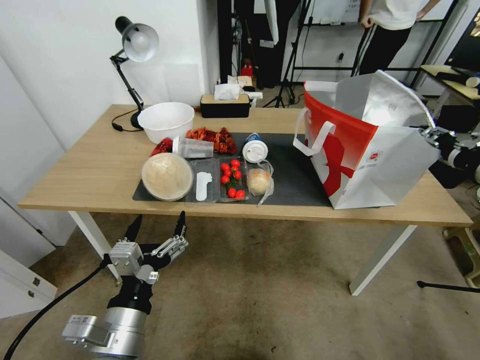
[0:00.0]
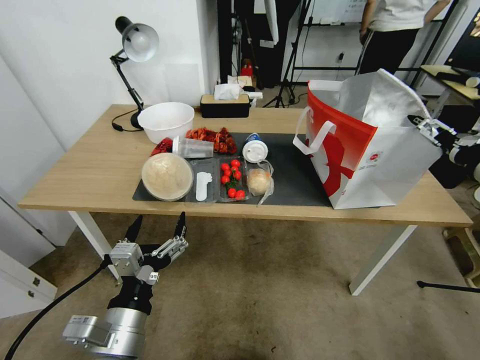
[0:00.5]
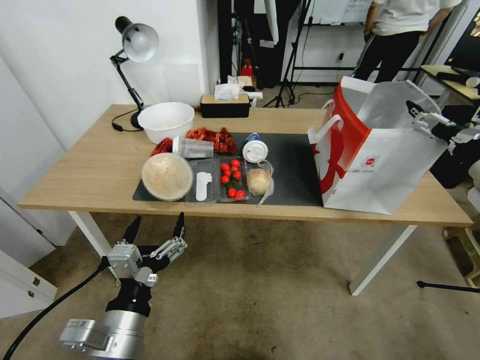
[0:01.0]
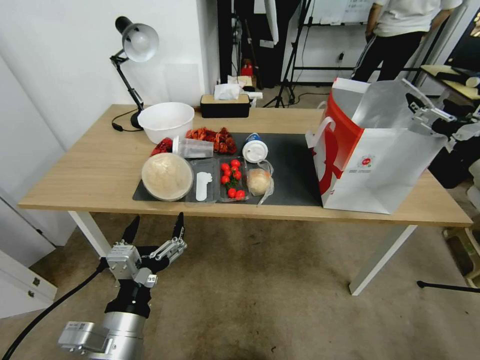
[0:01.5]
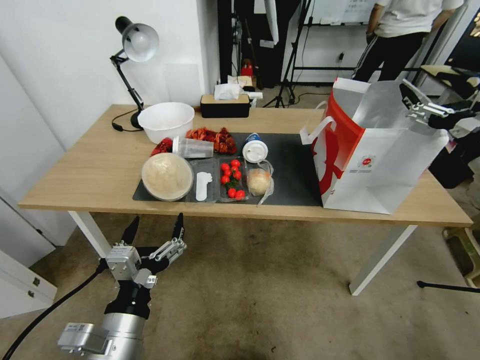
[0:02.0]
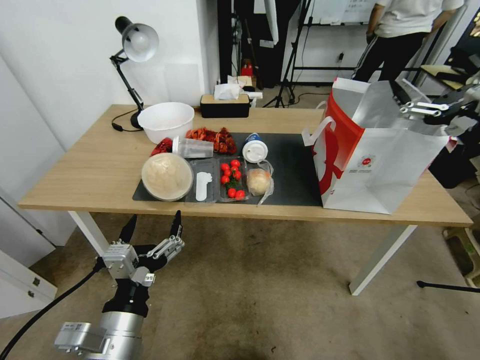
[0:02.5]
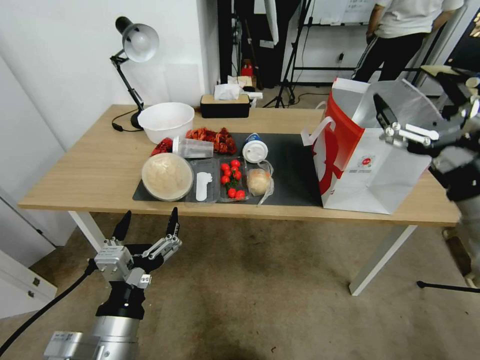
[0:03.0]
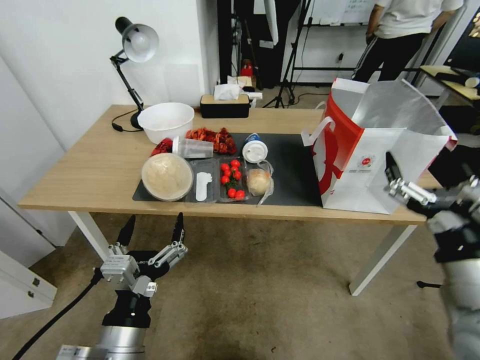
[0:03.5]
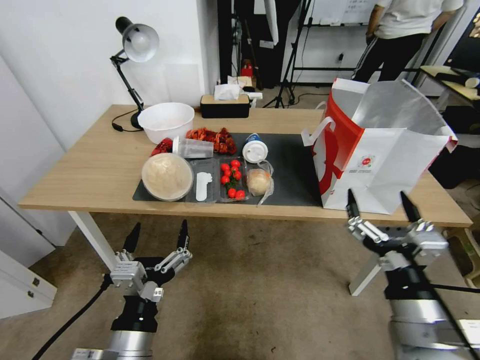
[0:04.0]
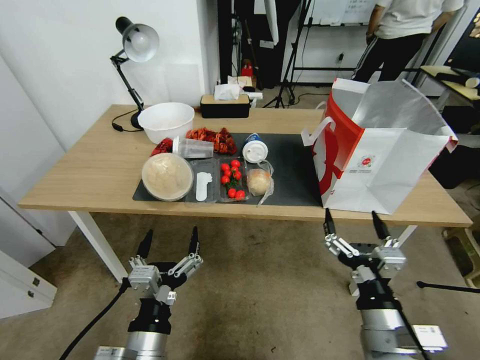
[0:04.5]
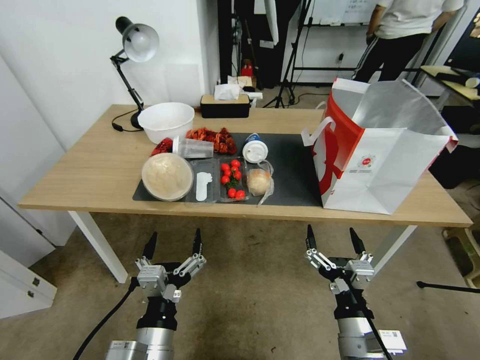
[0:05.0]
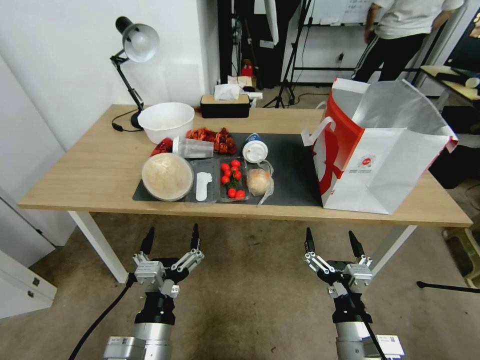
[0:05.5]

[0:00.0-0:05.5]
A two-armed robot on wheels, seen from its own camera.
Task of the whole recording: Pick up the food delivery bag from the floor and place it on the table.
0:00.0 to 0:02.0: The right gripper opens its fingers.
0:02.0 to 0:03.5: The right gripper shifts about 20 cm backward, to the left and downward.
0:03.5 to 0:05.5: The right gripper heads downward and to the left, covering roughly 20 cm. Meanwhile the left gripper shifts roughly 5 cm downward.

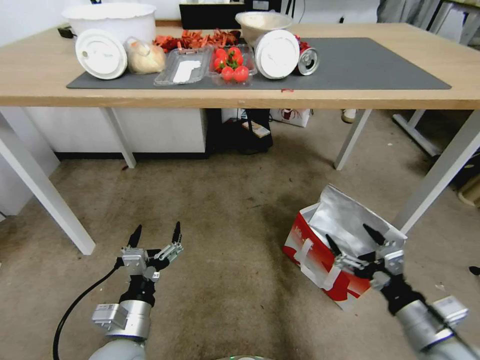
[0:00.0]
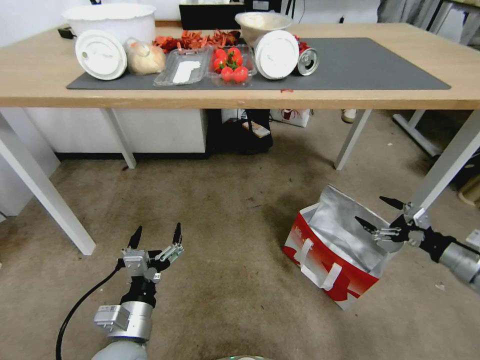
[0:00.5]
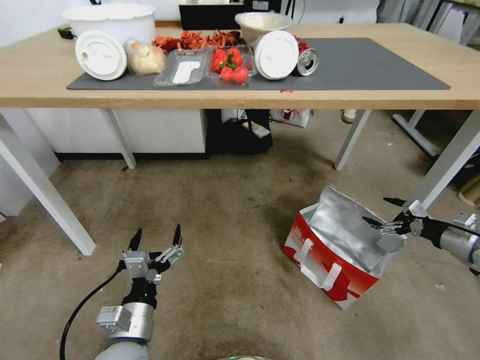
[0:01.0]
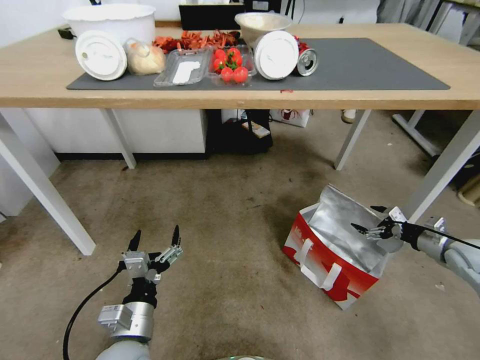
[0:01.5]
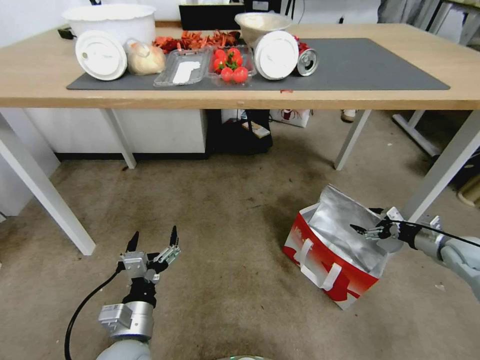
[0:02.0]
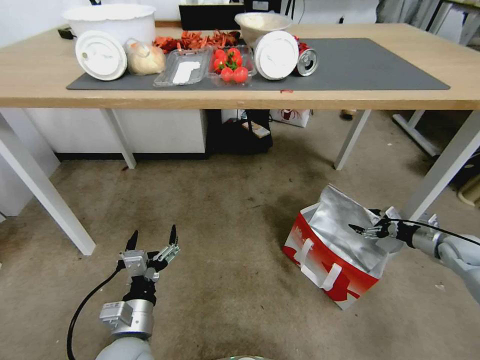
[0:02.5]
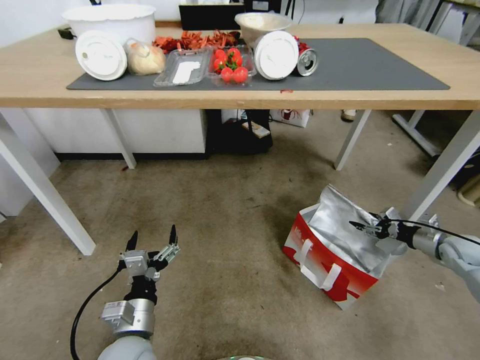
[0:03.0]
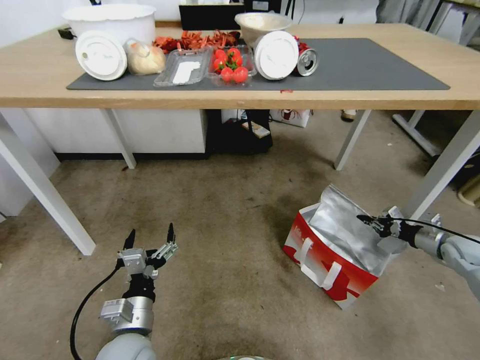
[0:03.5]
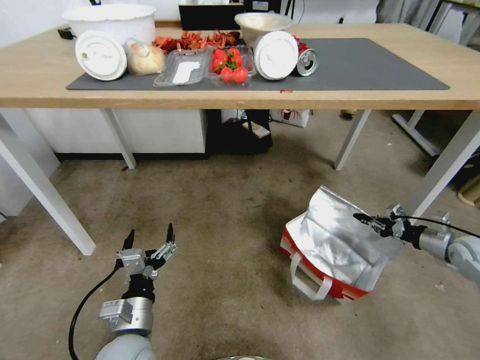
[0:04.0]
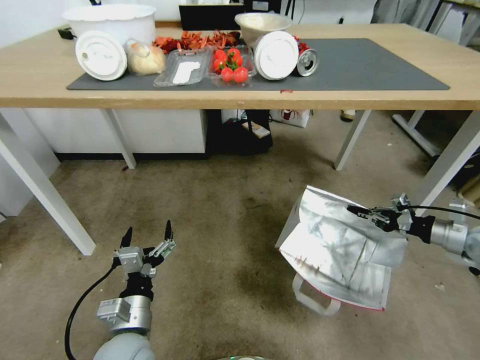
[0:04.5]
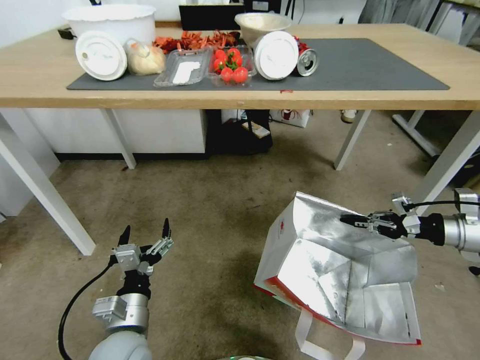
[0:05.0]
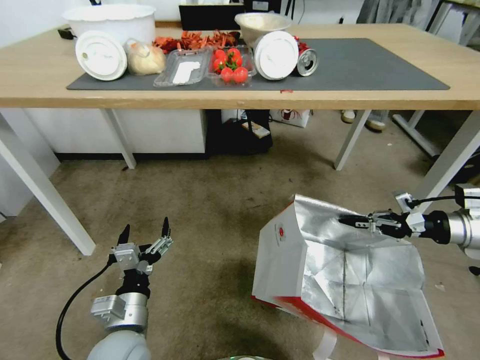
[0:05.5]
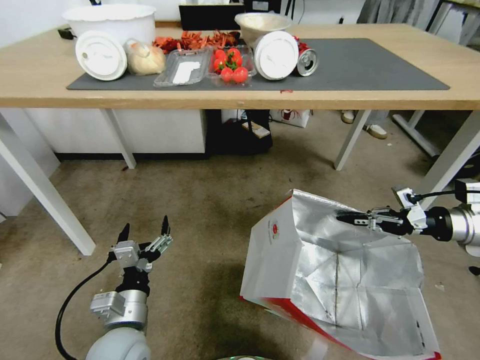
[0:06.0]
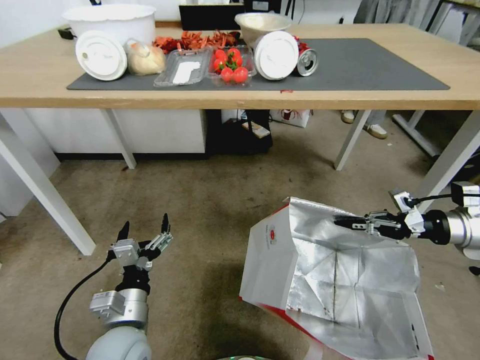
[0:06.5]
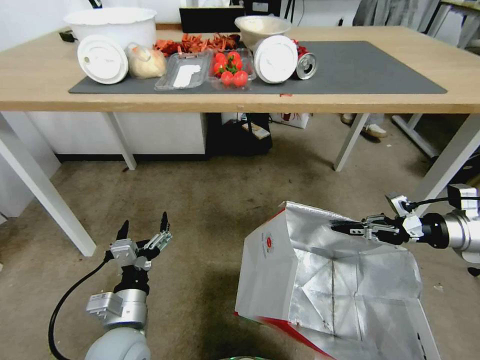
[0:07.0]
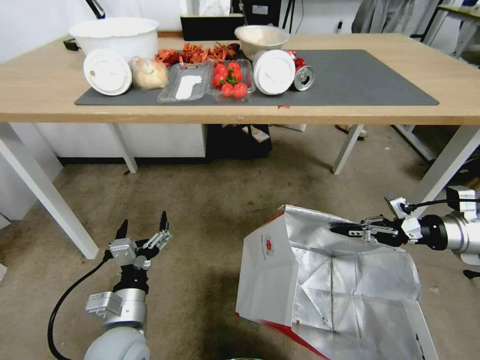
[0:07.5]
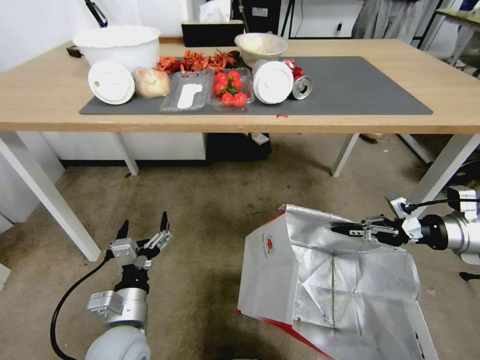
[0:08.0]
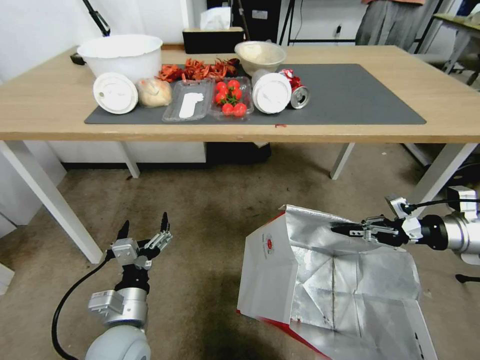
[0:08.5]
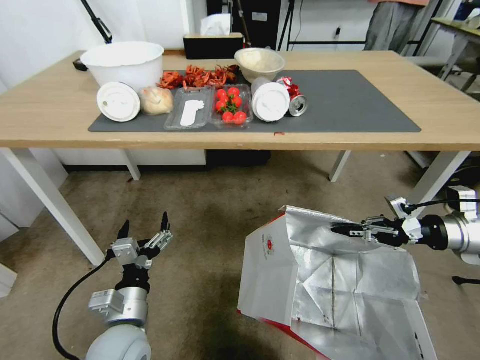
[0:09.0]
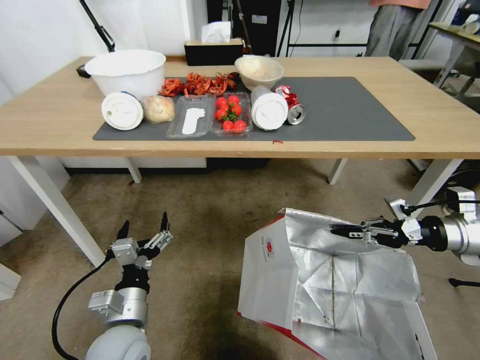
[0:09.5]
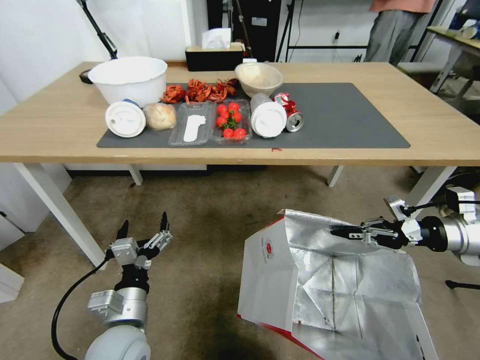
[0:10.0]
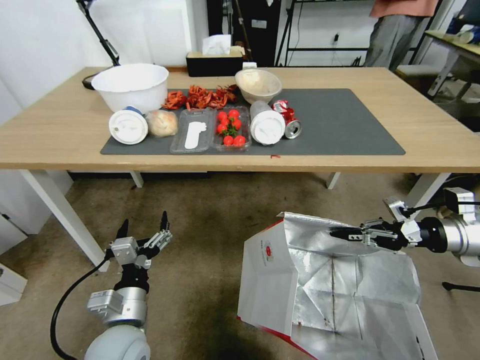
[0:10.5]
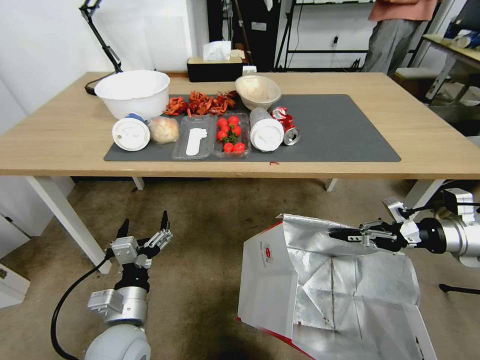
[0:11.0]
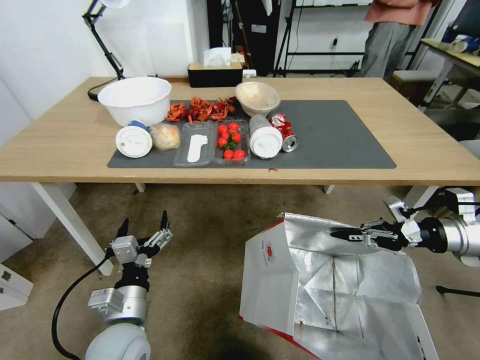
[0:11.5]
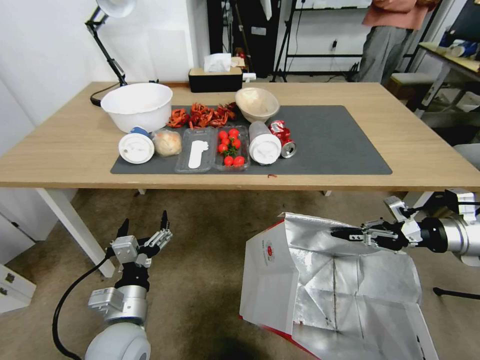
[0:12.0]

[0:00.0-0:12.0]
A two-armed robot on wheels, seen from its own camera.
Task of the whole recording: Pick up the food delivery bag from the floor and place it on the table.
0:00.0 to 0:02.0: The right gripper heads forward and to the right, covering roughly 30 cm.
0:02.0 to 0:04.0: The right gripper closes its fingers.
0:04.0 to 0:06.0: The right gripper shifts approximately 15 cm upward and to the left.

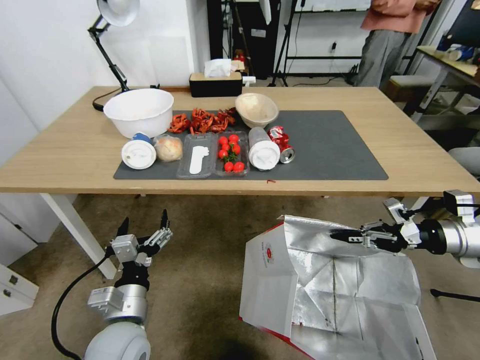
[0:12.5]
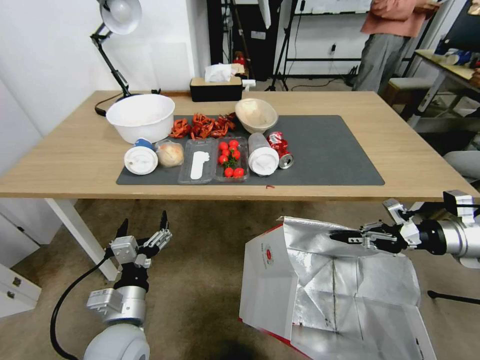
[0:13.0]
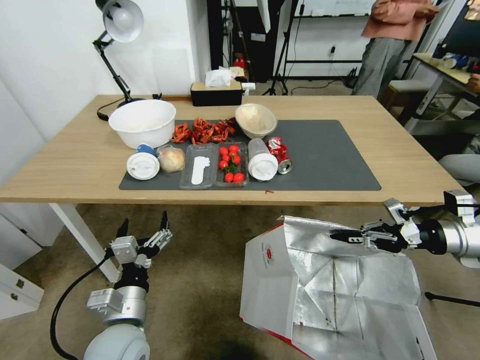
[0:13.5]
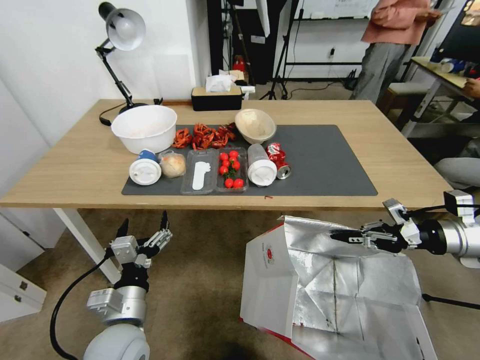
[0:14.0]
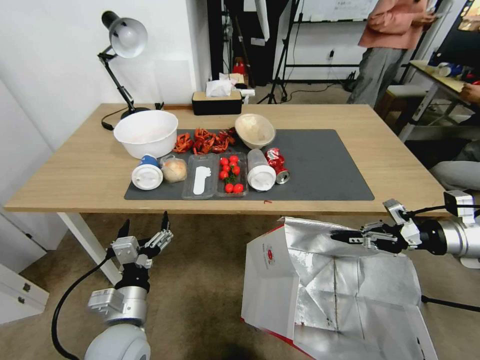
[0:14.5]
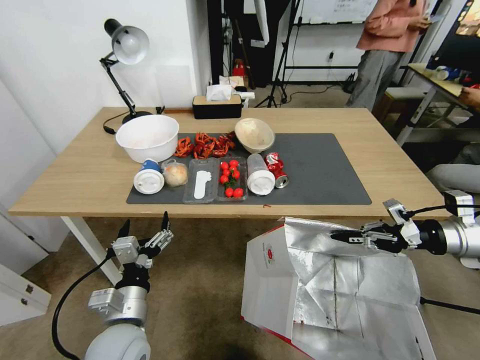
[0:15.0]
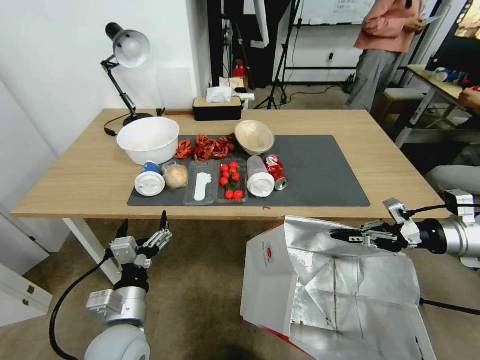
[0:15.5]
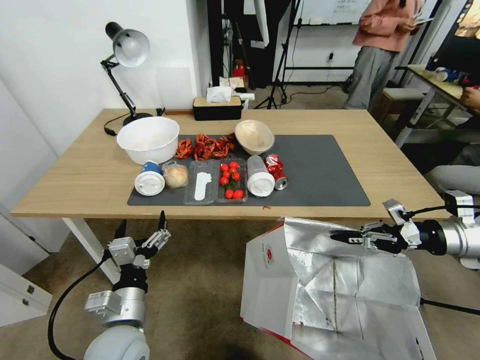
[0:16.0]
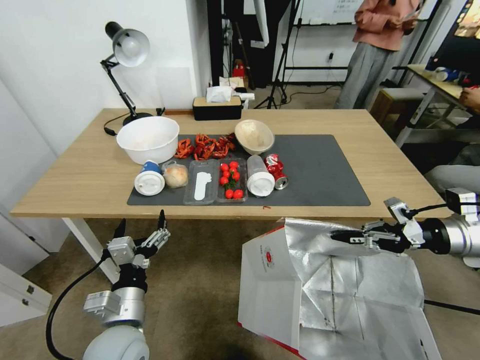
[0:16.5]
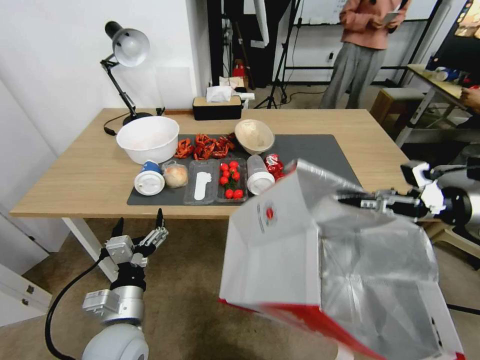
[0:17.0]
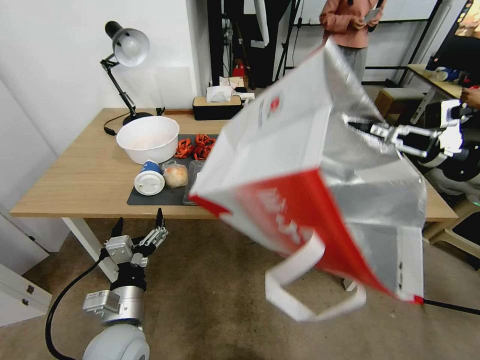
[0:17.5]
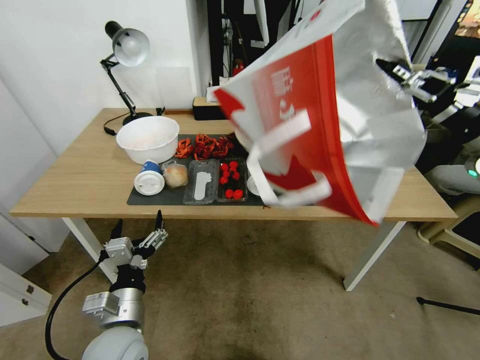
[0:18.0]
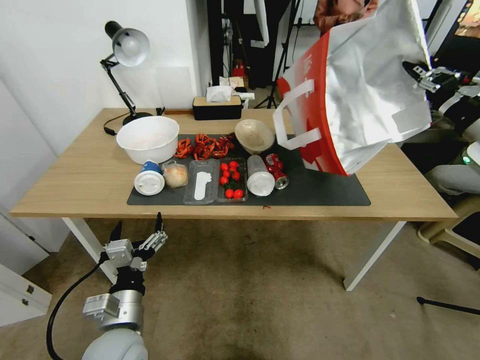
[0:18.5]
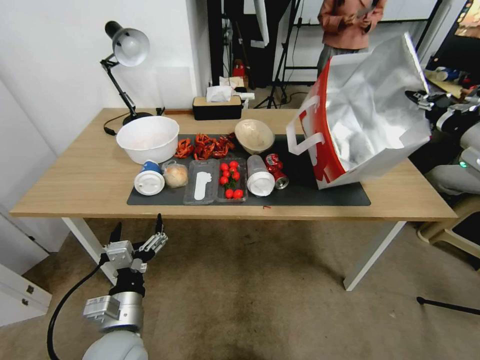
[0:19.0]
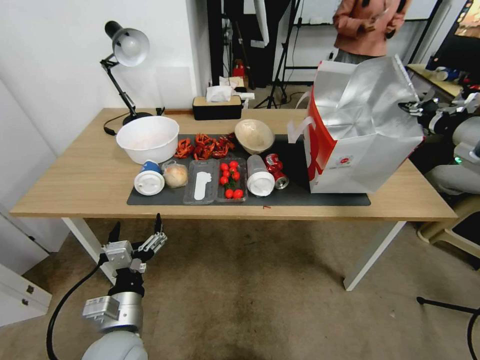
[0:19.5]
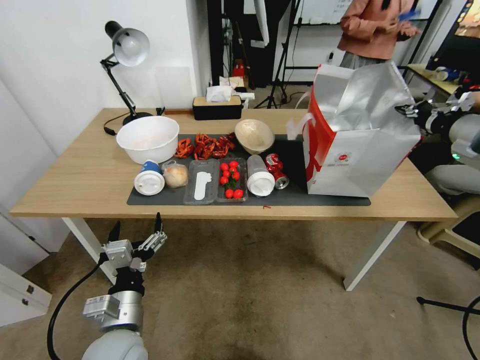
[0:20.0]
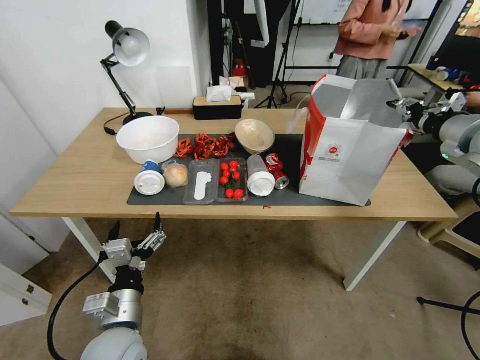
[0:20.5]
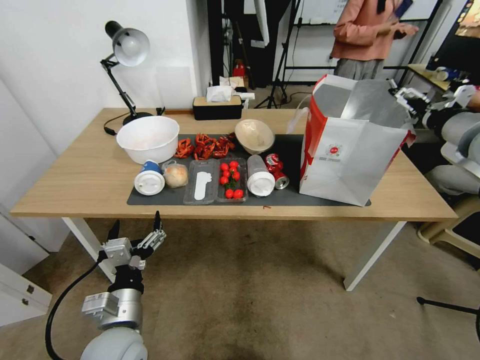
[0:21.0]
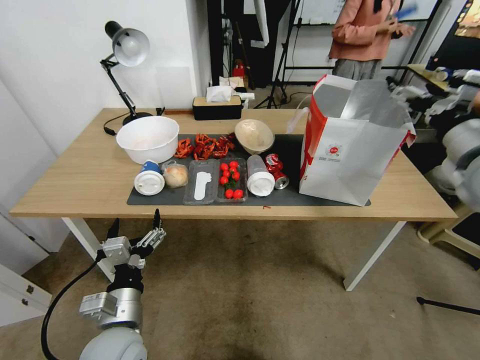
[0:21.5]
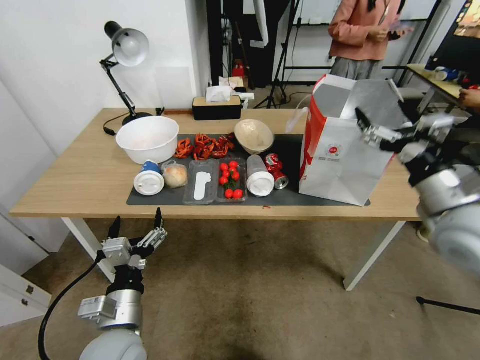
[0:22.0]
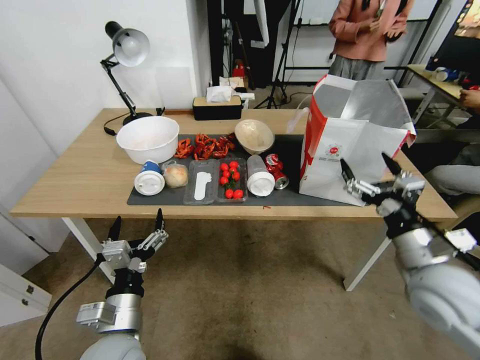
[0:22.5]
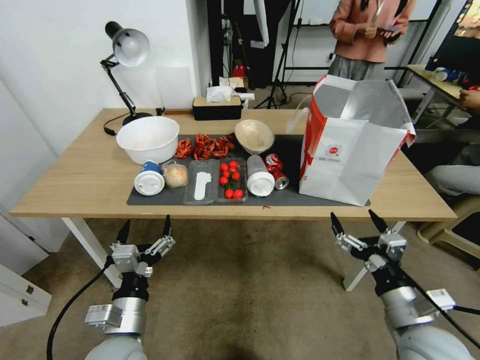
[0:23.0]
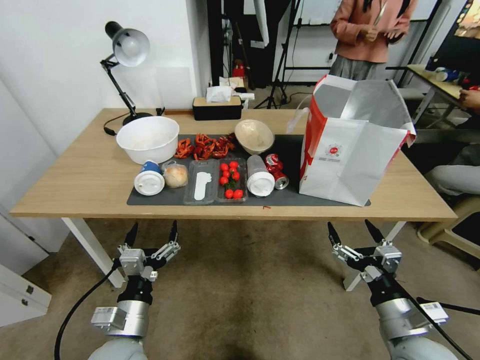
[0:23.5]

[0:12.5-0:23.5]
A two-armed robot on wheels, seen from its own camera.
Task of the whole recording: Pick up the food delivery bag from the floor and place it on the table.
0:14.5 to 0:16.0: Neither gripper changes place.
0:16.0 to 0:18.0: The right gripper is displaced upward by approximately 15 cm.
0:20.0 to 0:21.5: The right gripper is displaced to the left by roughly 5 cm, and opens up.
0:21.5 to 0:23.5: The right gripper travels downward and backward by some 35 cm.
